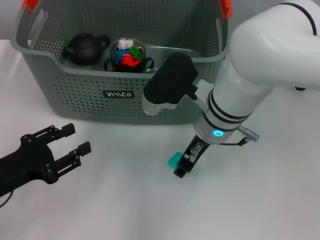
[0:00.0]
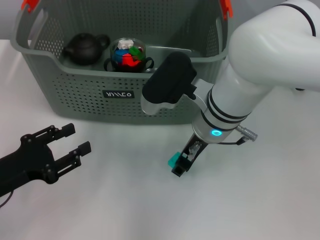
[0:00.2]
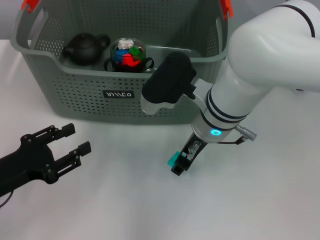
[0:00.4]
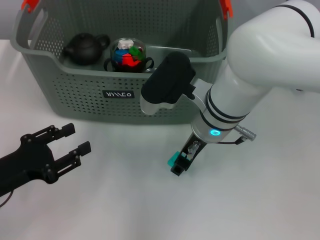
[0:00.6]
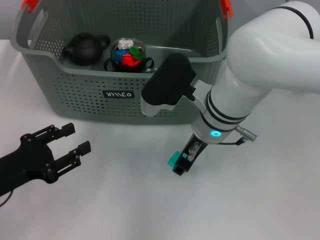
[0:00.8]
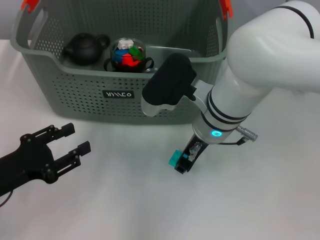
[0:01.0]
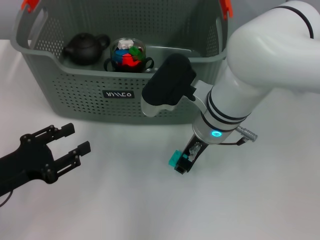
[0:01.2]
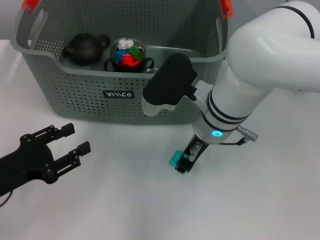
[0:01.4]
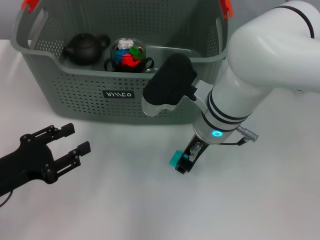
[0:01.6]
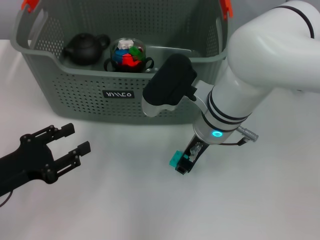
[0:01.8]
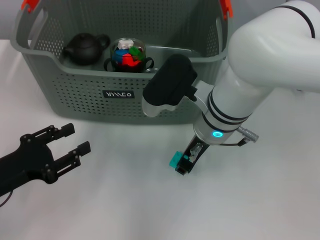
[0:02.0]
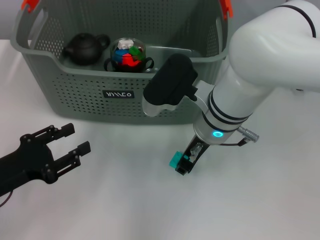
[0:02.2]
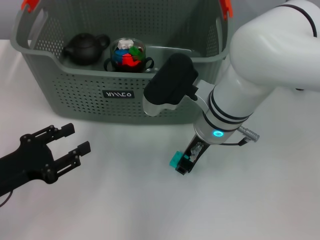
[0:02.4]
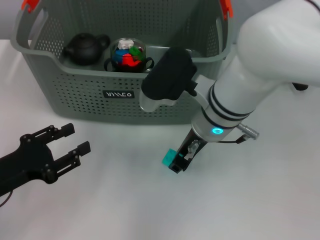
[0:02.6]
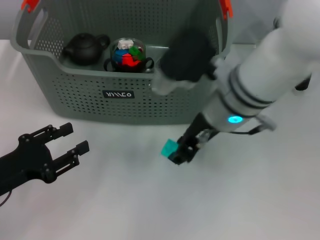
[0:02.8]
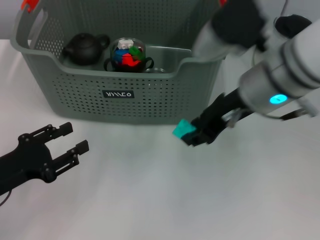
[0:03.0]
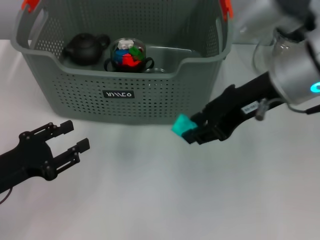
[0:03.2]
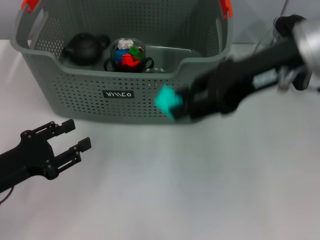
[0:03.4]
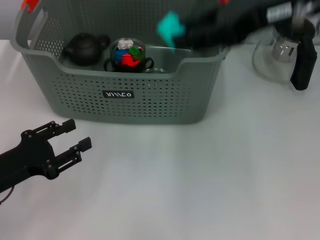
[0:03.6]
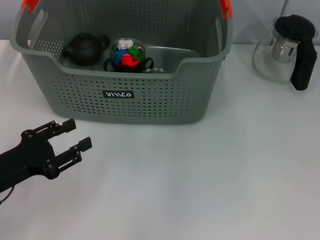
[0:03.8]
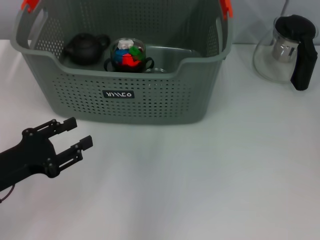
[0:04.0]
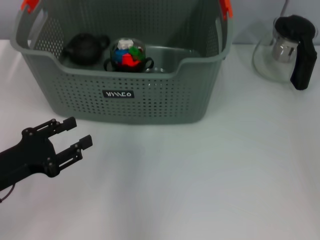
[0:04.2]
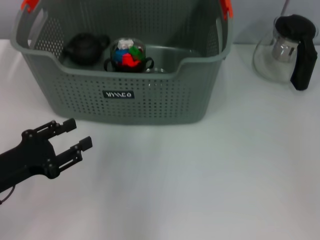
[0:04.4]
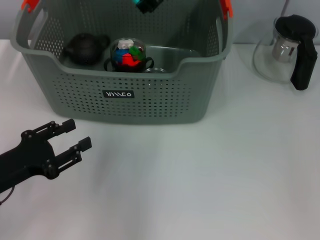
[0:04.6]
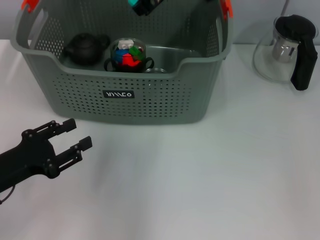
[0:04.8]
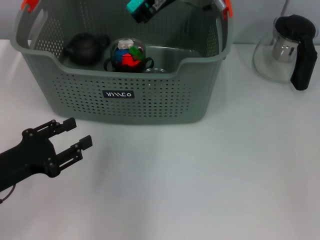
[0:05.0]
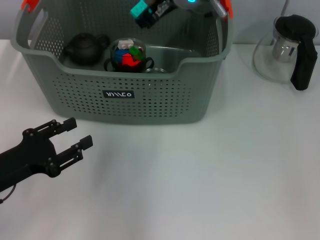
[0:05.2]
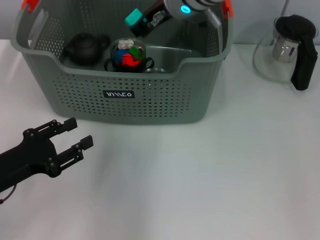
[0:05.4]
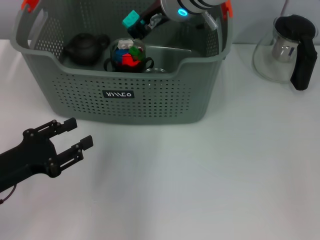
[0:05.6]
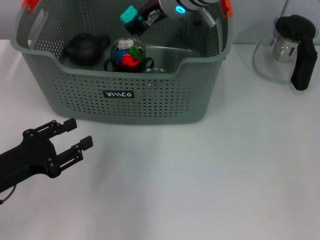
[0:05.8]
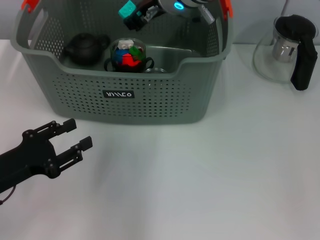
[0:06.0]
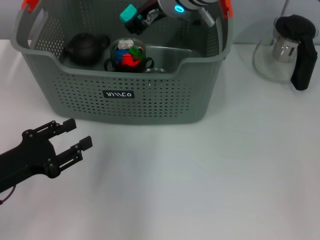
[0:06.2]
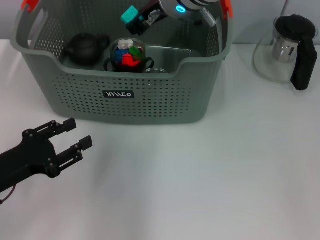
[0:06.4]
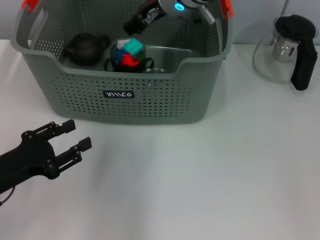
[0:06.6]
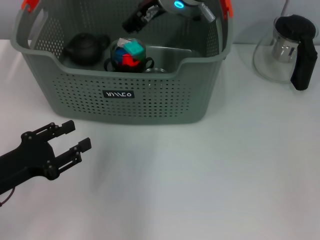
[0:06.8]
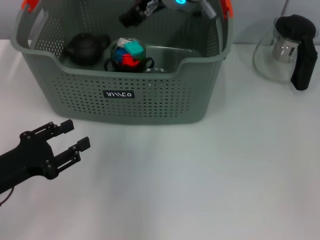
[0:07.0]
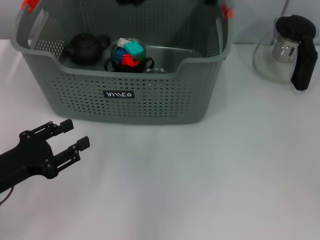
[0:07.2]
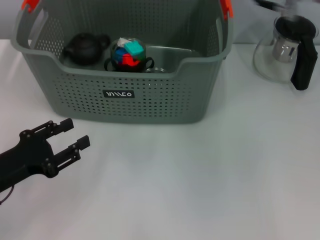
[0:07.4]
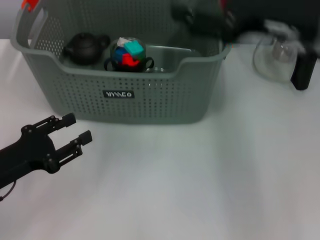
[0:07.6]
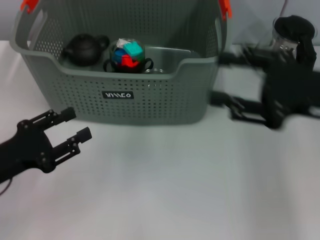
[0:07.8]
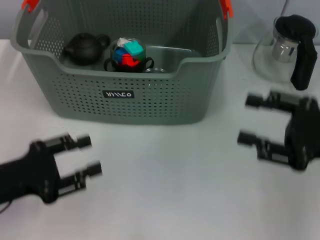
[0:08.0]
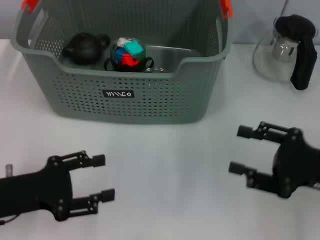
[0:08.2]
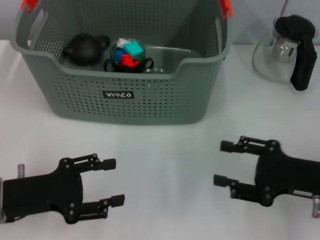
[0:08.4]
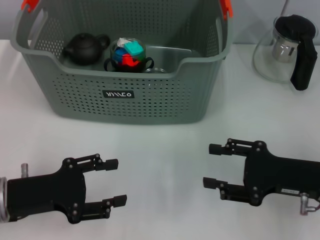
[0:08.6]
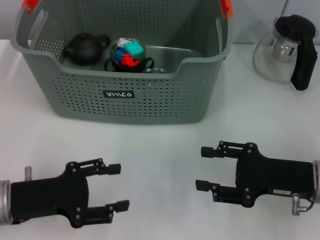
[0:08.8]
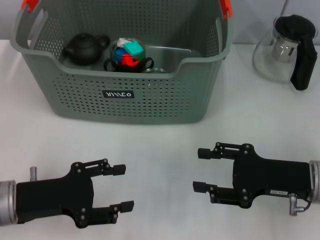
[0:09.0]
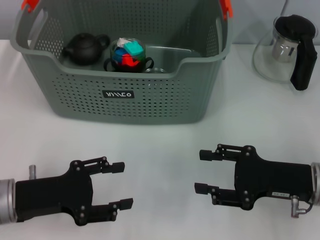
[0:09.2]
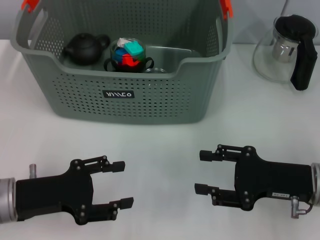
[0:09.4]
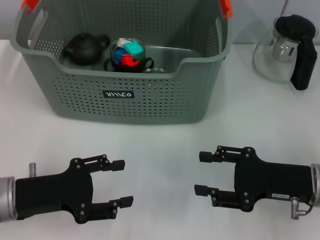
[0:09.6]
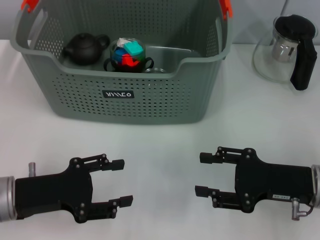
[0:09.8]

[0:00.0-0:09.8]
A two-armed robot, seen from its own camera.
Task of the whole recording: pick up the teacup on the table and place it into the storage bin, pick up the block on the table and place it into the storage bin.
Step, 0:02.2 to 0:06.6: Place the light blue block in the storage box with right gripper.
0:00.0 to 0:01.4: Both grippers stay about where they are.
0:01.4 to 0:02.8: The grippers move only a little.
0:02.8 to 0:04.2: The right gripper travels upward and forward by about 20 cm.
0:04.2 to 0:05.6: The right gripper moves downward and to the left, approximately 15 cm.
0:05.6 to 0:07.0: The grippers make only small movements.
0:07.0 to 0:08.4: The right gripper moves to the right, backward and downward, approximately 35 cm.
0:08.4 to 0:09.8: There are only small adjustments of the grippers.
